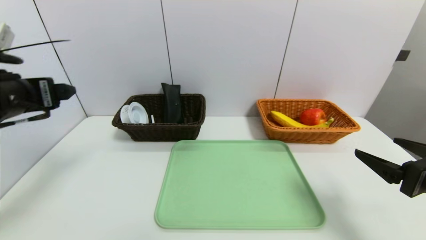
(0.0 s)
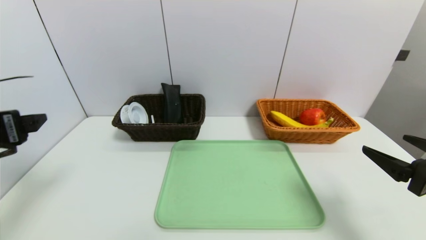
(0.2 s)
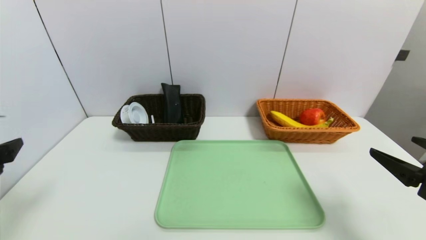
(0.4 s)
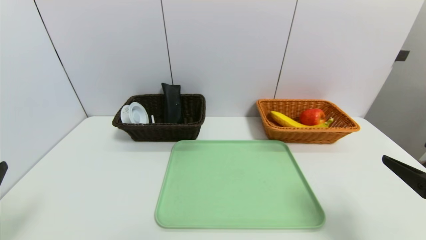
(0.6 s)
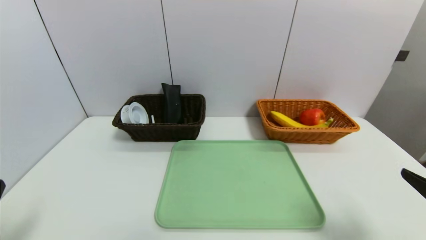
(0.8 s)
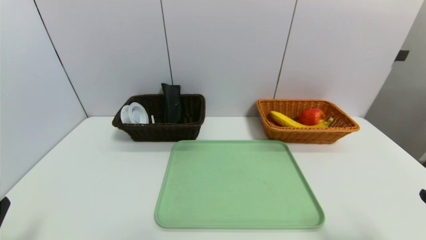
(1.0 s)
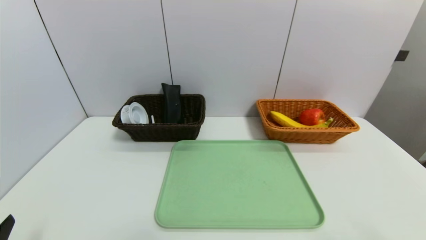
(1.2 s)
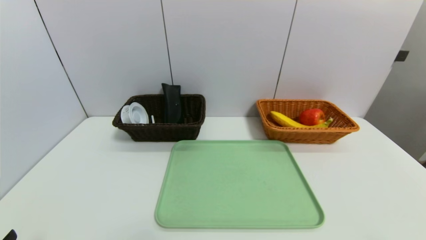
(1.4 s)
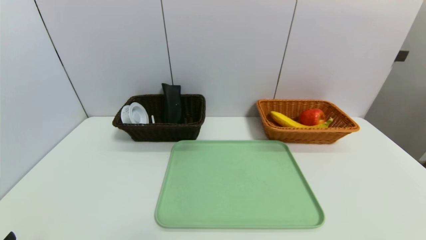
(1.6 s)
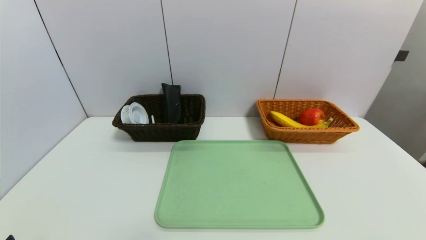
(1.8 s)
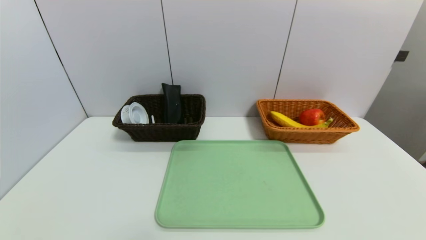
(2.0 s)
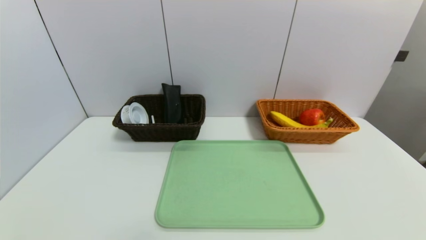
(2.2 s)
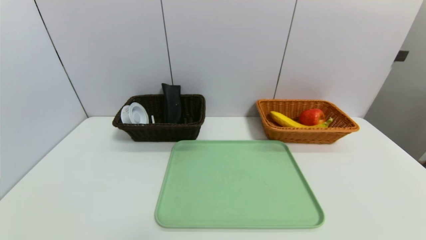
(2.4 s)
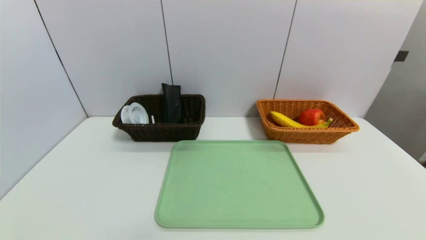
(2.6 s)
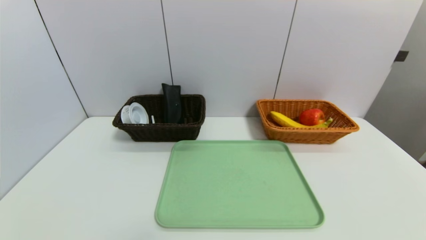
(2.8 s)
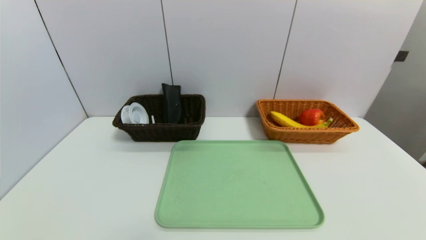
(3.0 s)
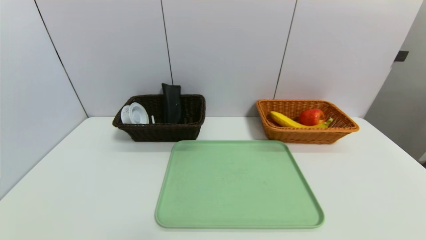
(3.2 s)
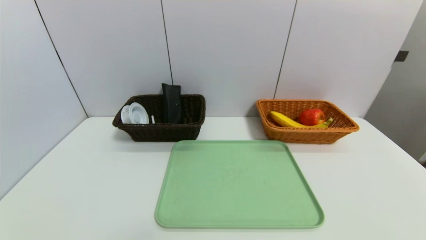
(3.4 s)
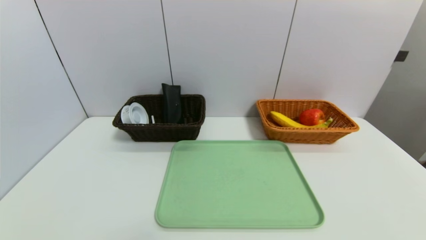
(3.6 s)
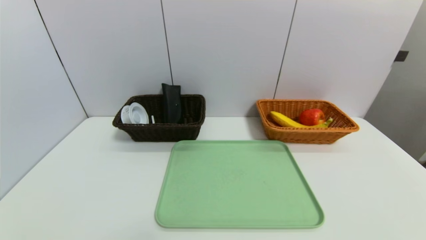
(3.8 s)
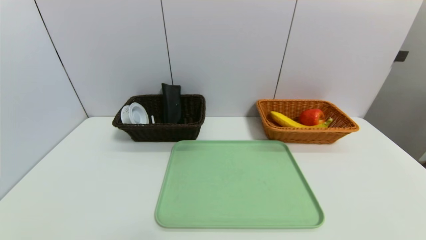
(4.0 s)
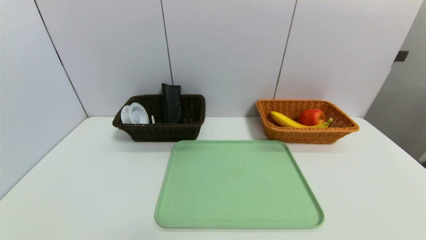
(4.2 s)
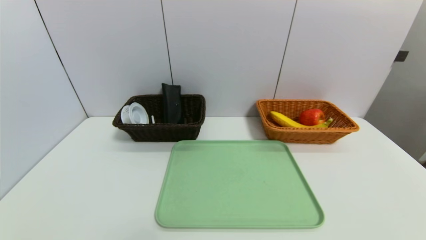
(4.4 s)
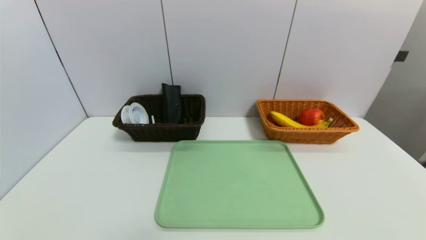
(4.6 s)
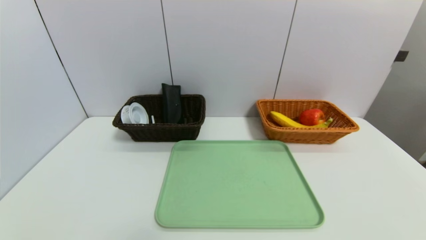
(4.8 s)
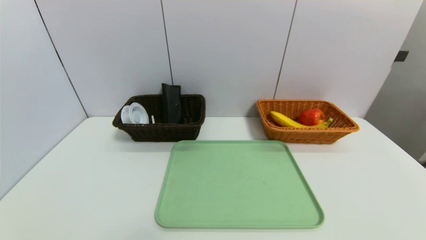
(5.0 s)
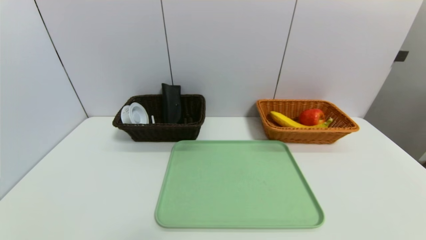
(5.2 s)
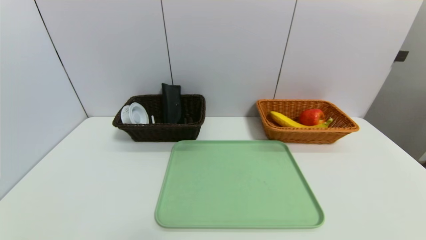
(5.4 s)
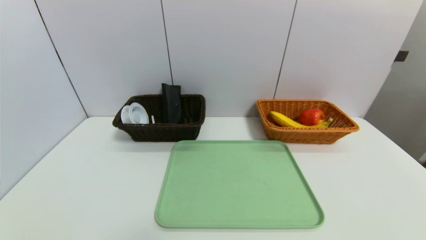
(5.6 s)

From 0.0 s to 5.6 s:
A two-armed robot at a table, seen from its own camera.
Task of the whole recording: place the food in the right basket with the right gripper, and place the non food items in the left basket with the left gripper.
From 0.0 s to 1.4 s: The right gripper shifts some 15 cm backward; the left gripper moves backward and downward, roughly 25 cm.
From 4.2 s to 5.6 s: Neither gripper changes place.

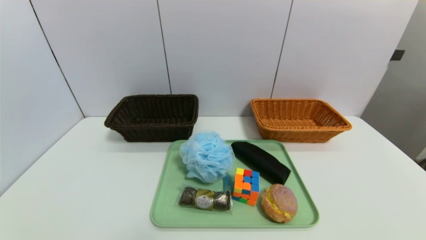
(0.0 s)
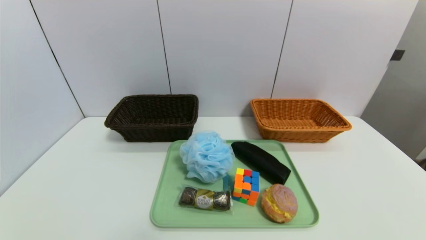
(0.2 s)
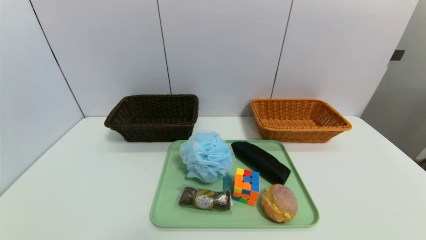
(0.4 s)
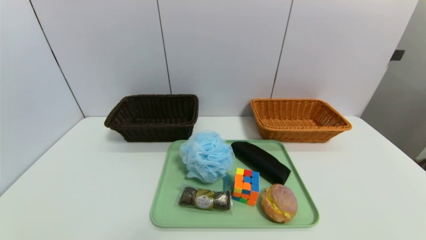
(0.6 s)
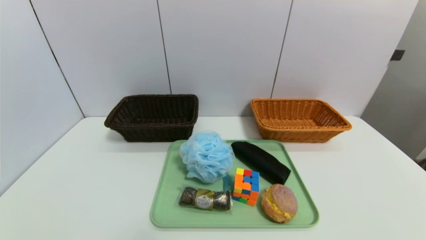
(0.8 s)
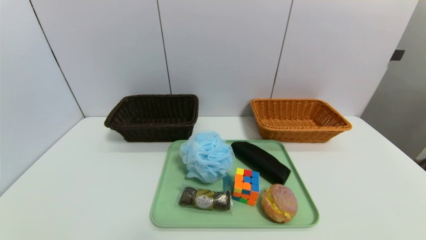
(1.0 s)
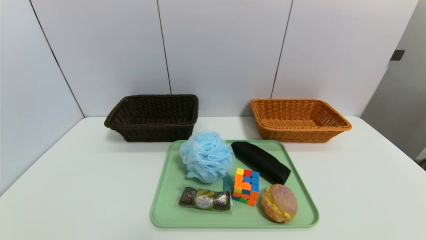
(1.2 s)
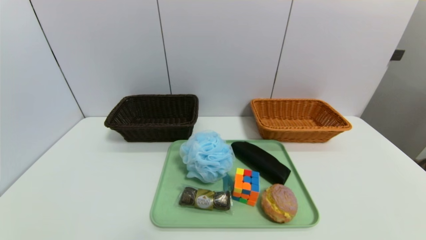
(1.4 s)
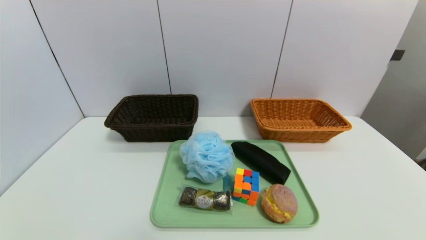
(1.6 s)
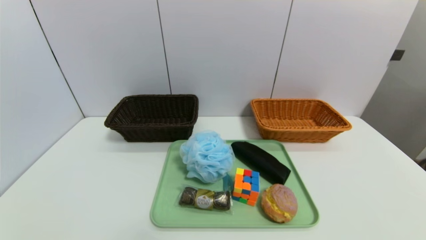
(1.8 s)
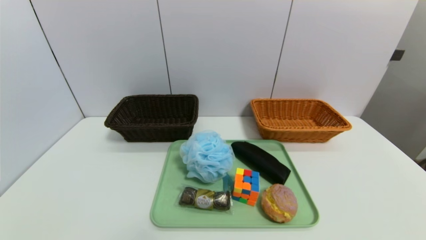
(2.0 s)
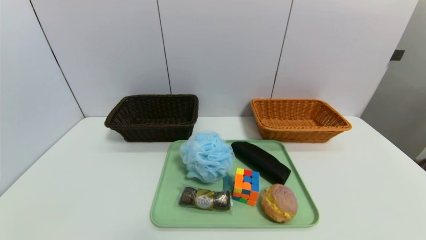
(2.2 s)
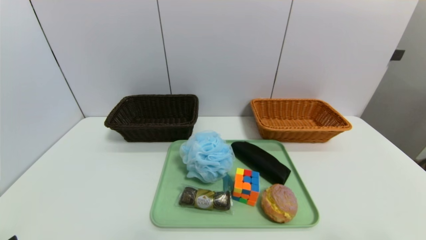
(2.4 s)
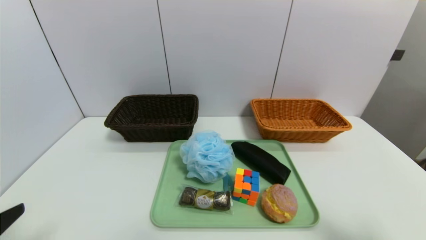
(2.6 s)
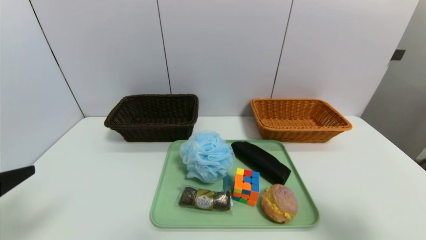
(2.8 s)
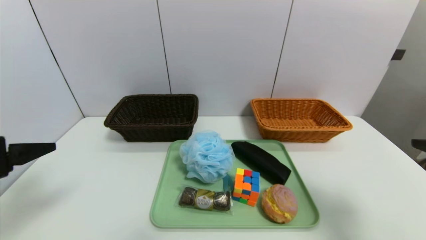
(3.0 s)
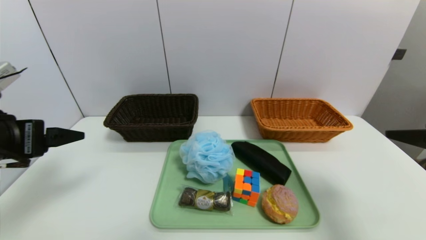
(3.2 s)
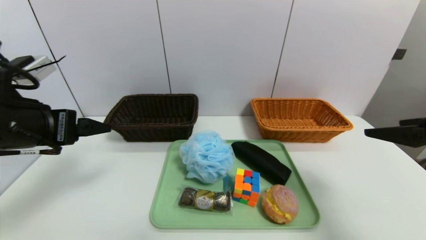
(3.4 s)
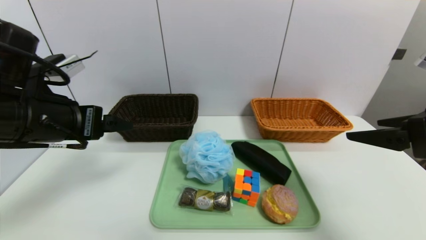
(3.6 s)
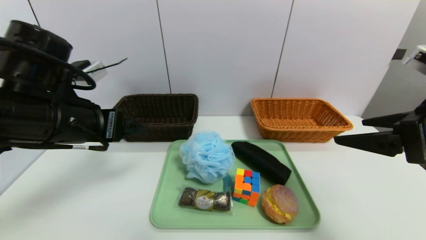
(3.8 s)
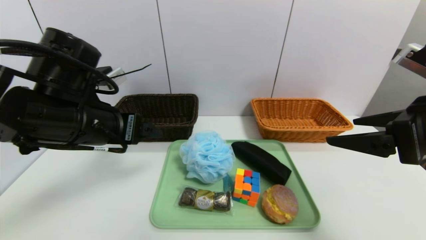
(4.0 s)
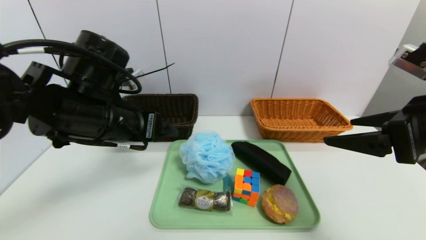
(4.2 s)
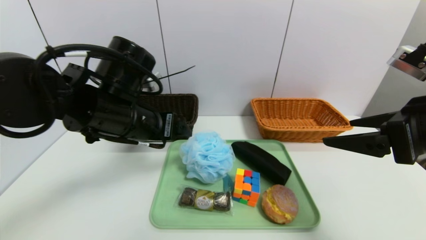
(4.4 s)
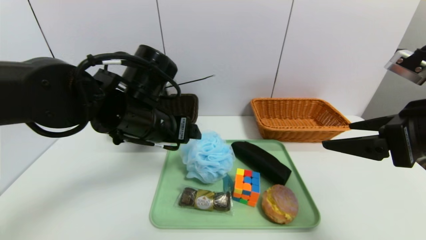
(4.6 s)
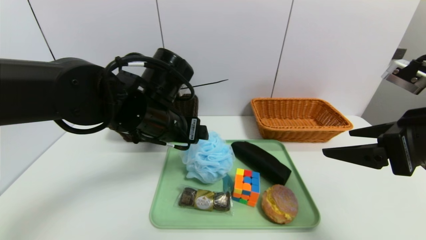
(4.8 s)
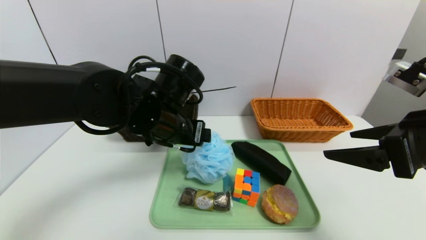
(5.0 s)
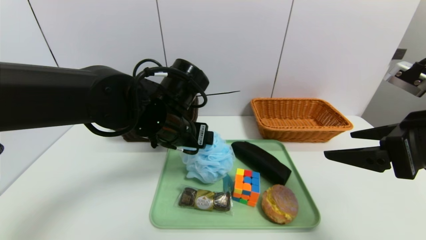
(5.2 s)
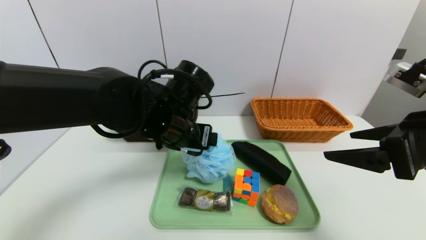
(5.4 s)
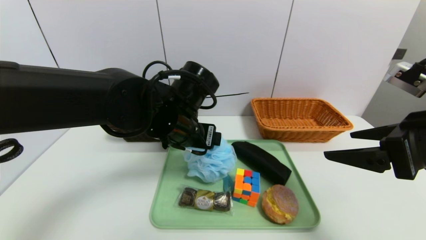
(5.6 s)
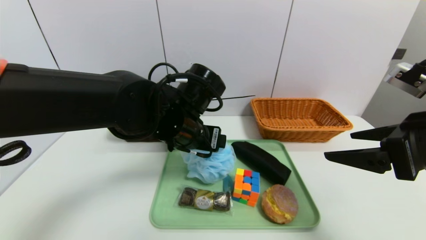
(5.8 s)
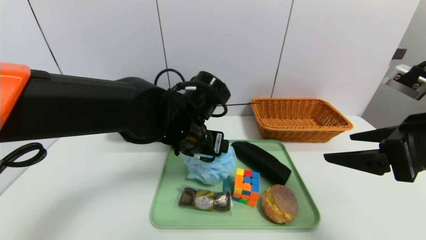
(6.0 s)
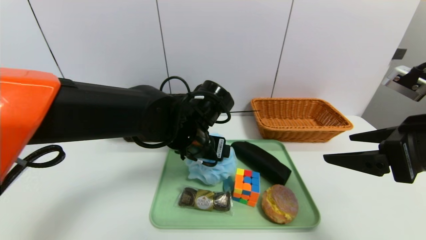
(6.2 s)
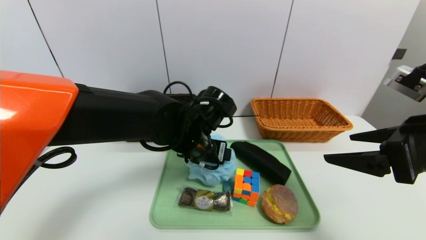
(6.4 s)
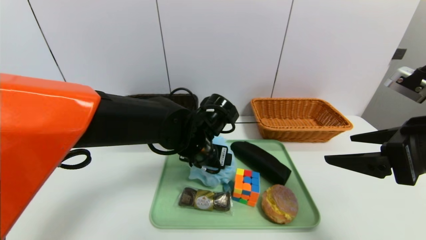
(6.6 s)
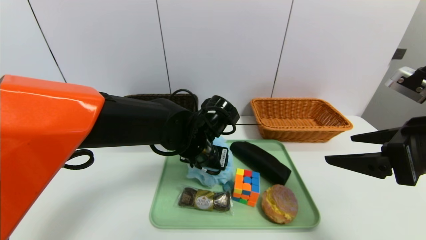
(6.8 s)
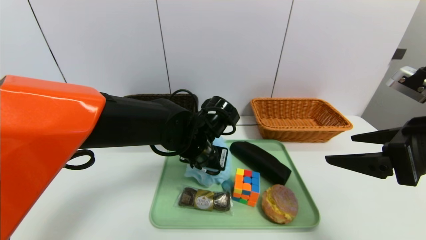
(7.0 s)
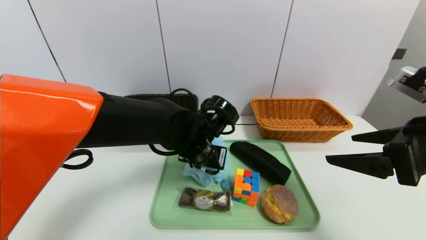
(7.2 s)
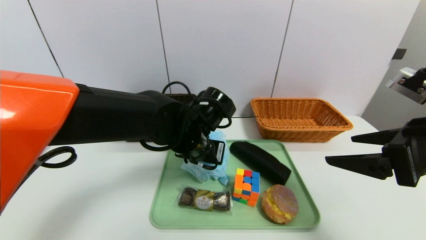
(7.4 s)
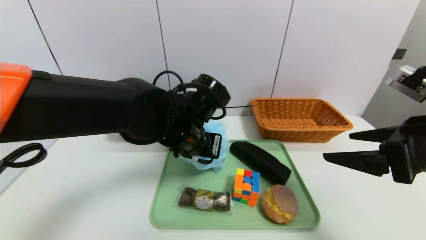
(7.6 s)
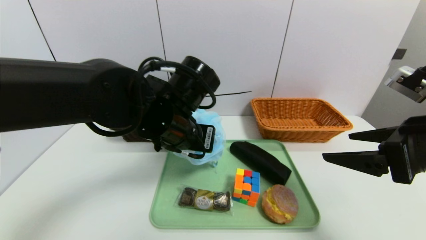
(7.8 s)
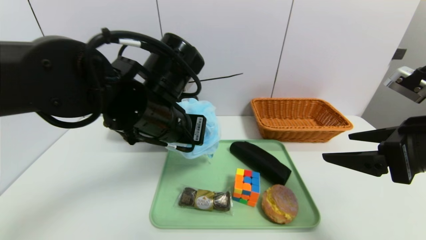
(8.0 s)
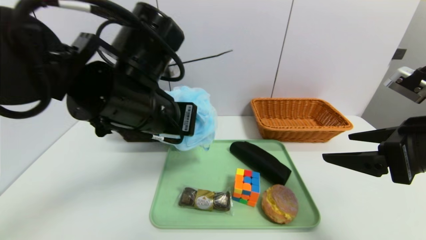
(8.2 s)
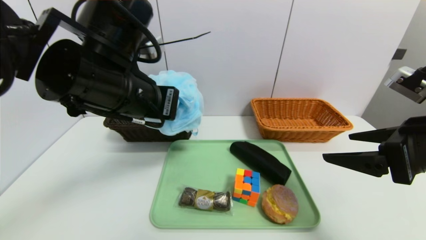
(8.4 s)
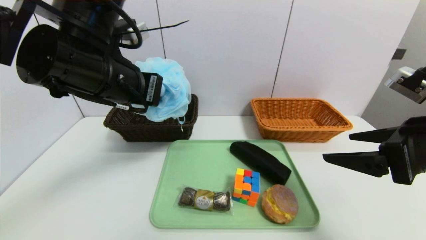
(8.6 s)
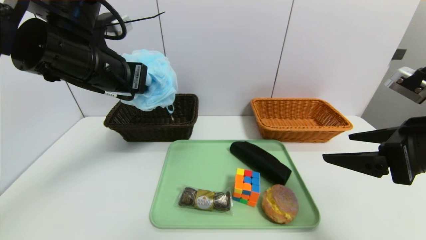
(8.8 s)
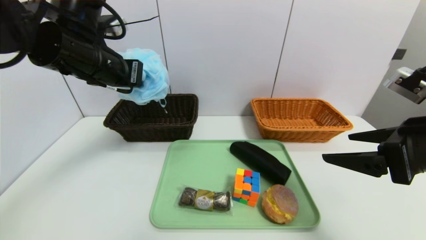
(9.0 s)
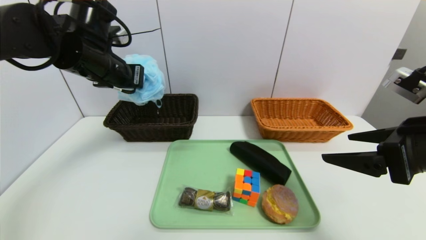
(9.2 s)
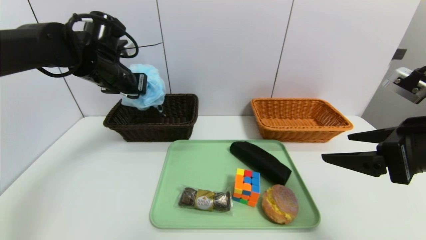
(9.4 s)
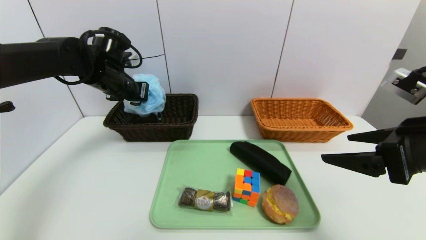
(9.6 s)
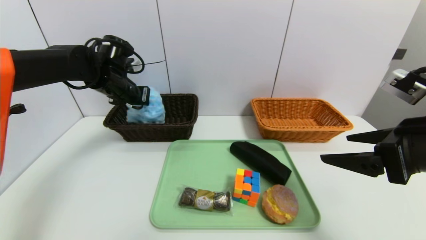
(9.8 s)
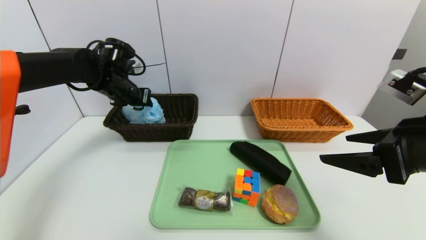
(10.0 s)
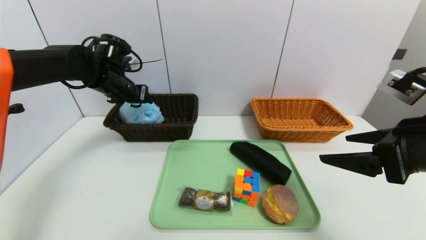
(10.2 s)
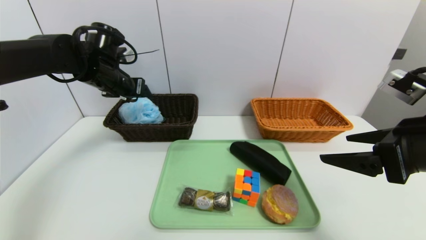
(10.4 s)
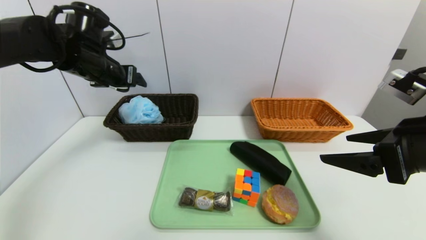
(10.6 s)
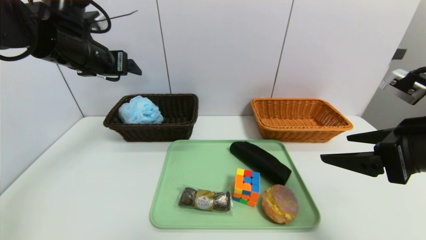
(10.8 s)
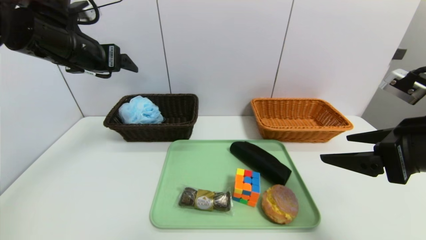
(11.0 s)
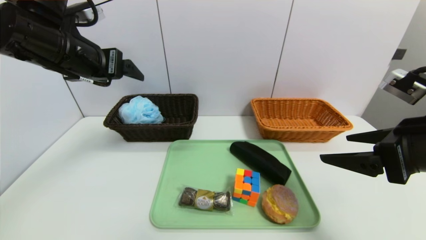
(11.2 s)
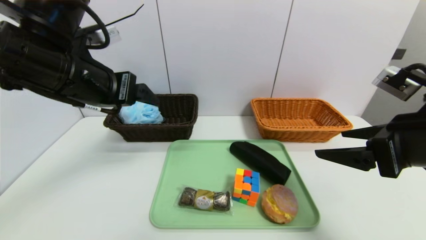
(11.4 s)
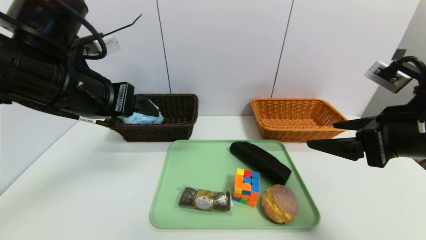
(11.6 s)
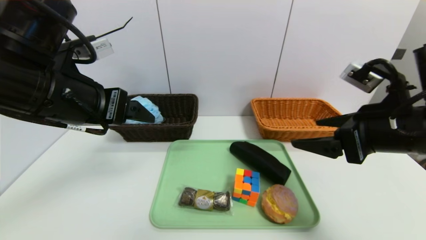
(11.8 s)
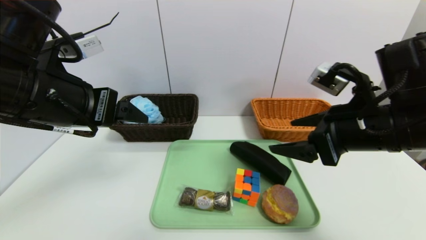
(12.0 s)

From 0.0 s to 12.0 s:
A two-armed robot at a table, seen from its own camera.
Task of the whole recording: place the food in the right basket with the right gripper, and place the non food items in the left basket with the left gripper.
Step, from 0.0 s to 10.6 s: Grasp the bath ball and put it in the left basket.
From 1.6 s to 3.0 s: The two grippers go some 25 cm upward and forward.
From 3.0 s to 4.4 s: The right gripper shifts some 10 cm to the left and forward; the left gripper moves to the right and forward, approximately 20 cm.
From 4.4 s to 6.0 s: The left gripper goes some 10 cm to the right.
From 6.0 s to 7.6 s: The left gripper closes.
From 7.6 s to 9.0 s: The left gripper moves to the left and upward, some 20 cm.
From 9.0 s to 10.4 s: The left gripper is displaced forward by about 10 cm, and opens its fingers.
From 10.4 s to 12.0 s: The right gripper shifts about 5 cm to the left; the left gripper is displaced backward by about 20 cm.
